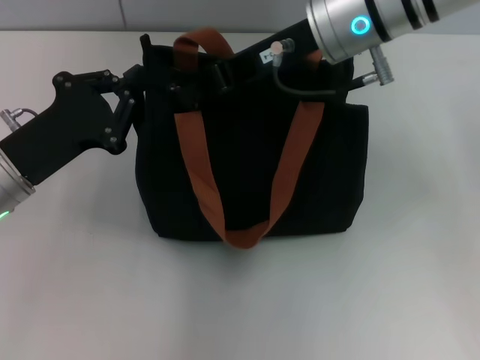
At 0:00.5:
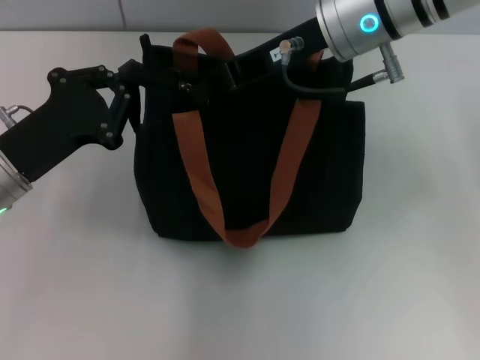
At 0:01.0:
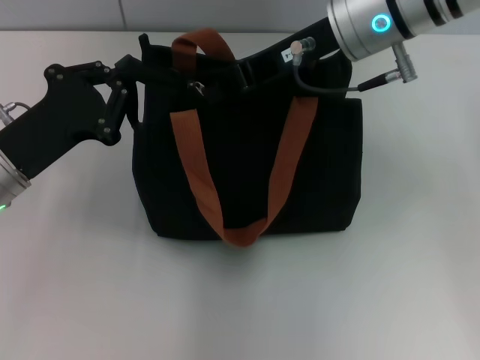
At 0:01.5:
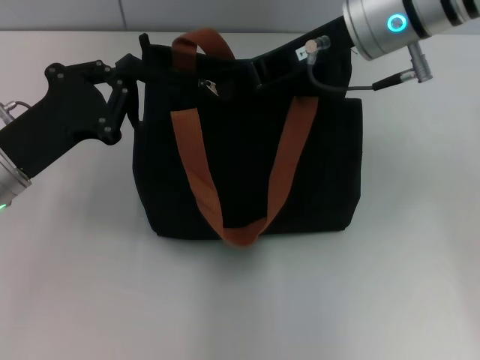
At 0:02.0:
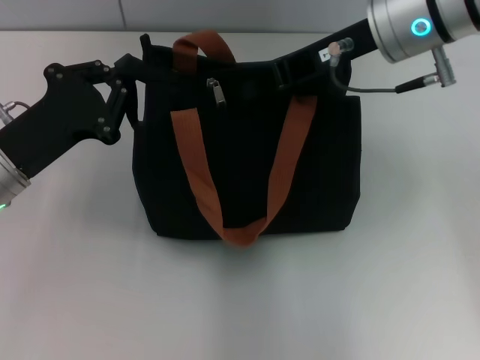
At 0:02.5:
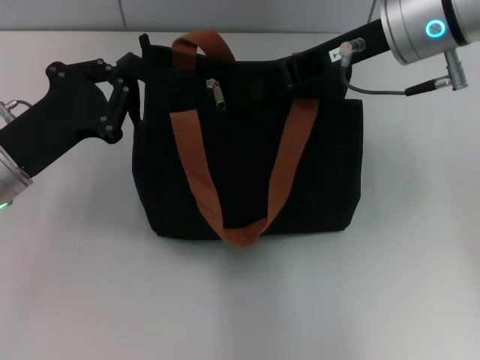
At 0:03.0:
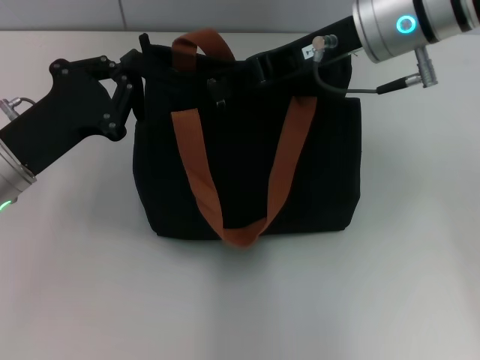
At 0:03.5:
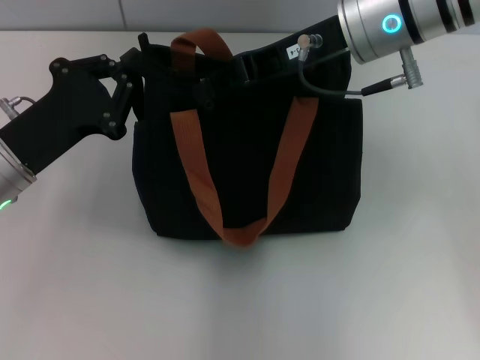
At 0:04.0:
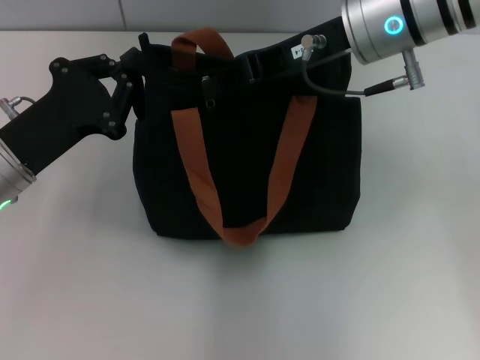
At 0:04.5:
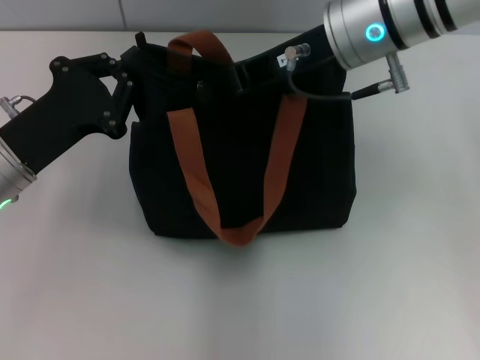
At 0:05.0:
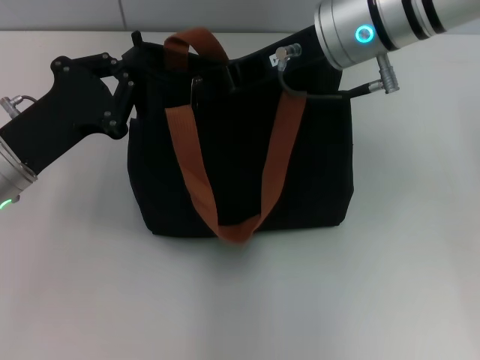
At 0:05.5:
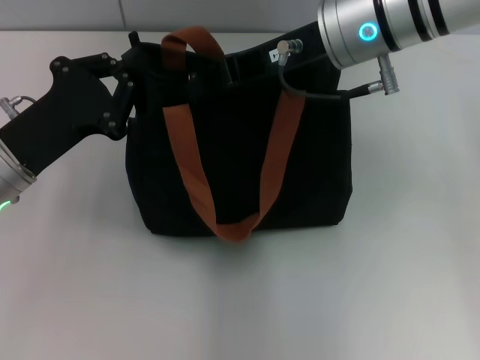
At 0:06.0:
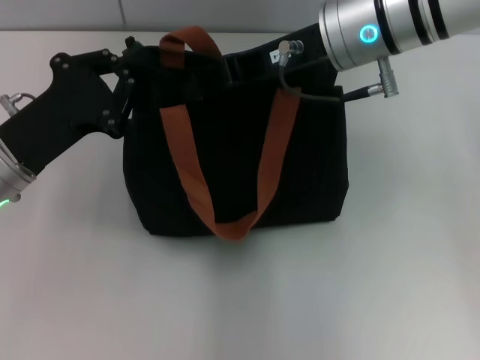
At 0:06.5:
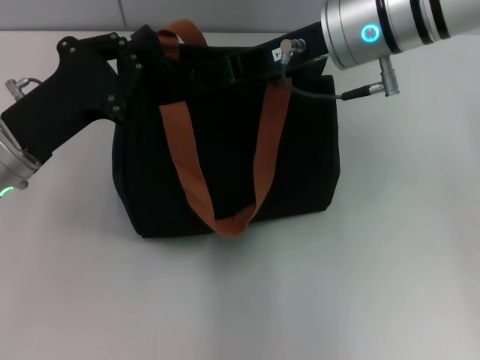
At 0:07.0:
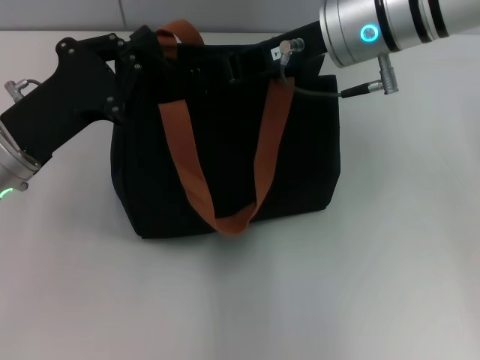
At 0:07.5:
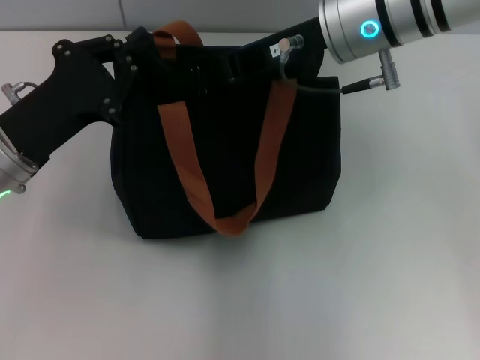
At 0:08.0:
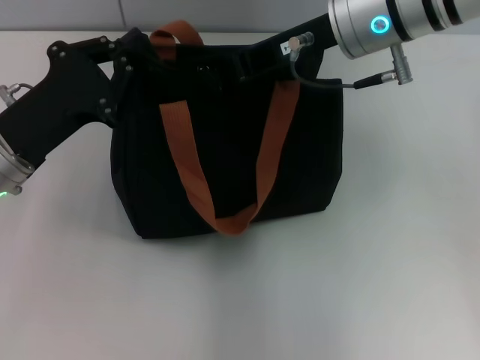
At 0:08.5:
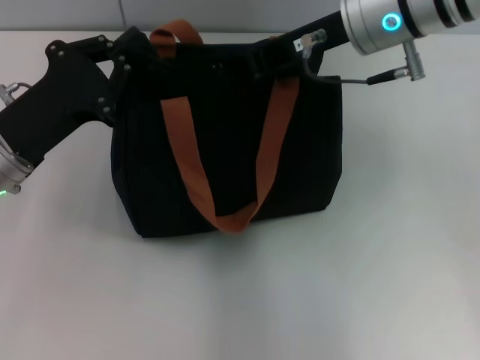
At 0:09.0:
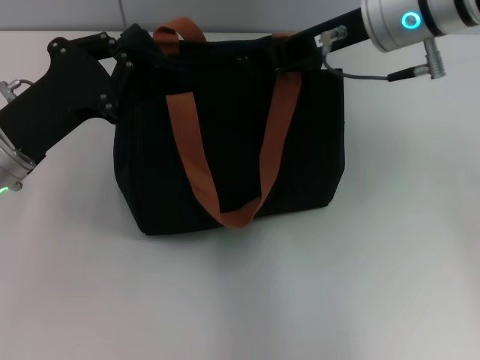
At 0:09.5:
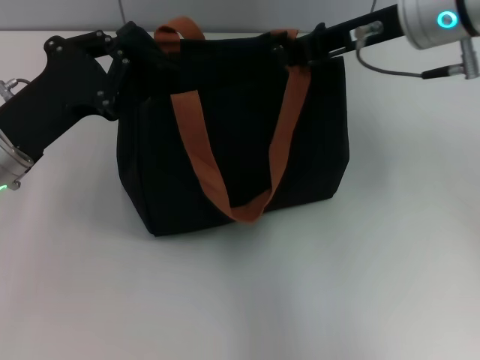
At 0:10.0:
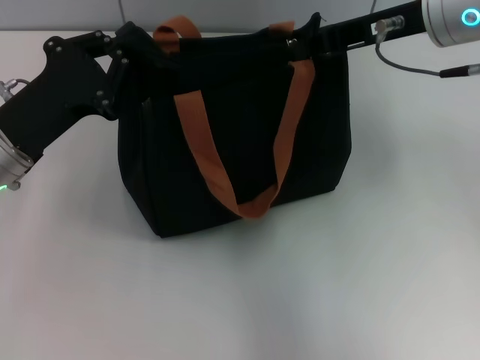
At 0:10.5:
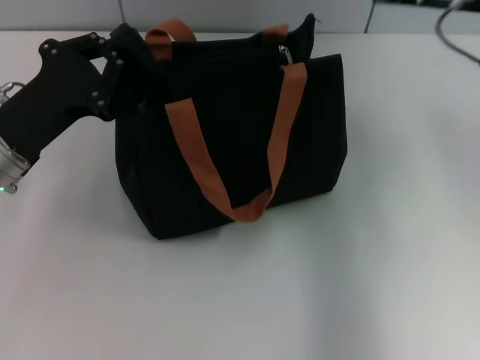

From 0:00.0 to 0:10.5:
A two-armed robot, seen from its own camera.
Step, from 0:00.0 to 0:10.5: Pull up the zipper with your right hand.
From 0:00.0 to 0:08.5: The grippers stay close to where they were, moving slightly.
From 0:08.5 to 0:10.5: The right gripper moves to the right, about 10 cm.

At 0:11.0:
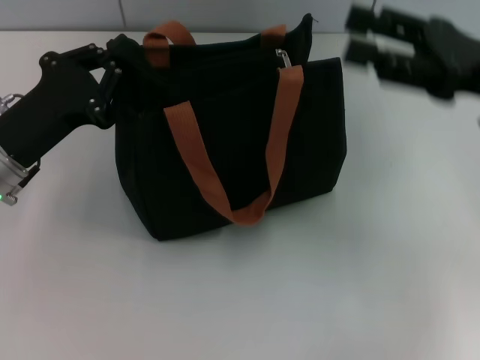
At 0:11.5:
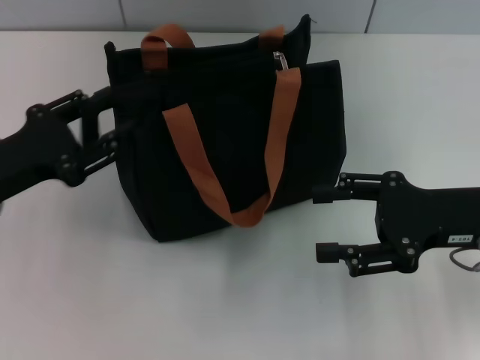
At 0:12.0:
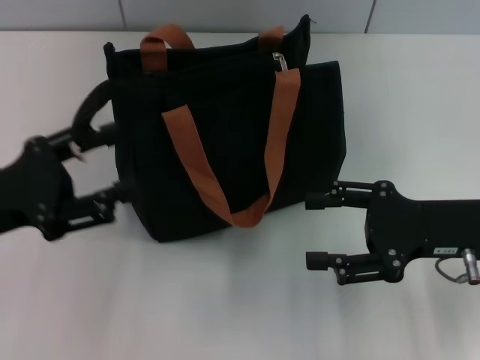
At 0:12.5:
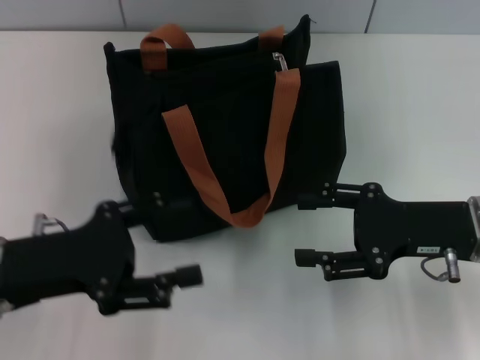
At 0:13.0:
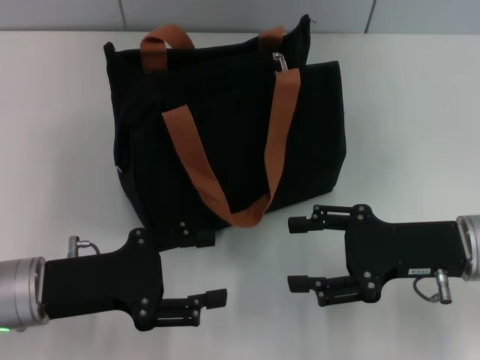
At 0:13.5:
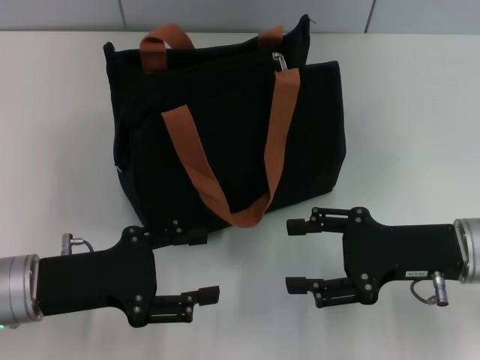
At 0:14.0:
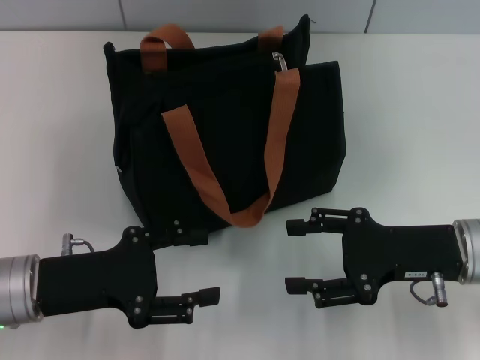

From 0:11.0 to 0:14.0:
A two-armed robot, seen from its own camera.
From 0:11.0 to 0:12.5: The left gripper is displaced backward by some 5 cm, and opens up. The right gripper goes approximately 10 cm downward.
From 0:12.5 to 0:14.0: There are only small adjustments of the grippers.

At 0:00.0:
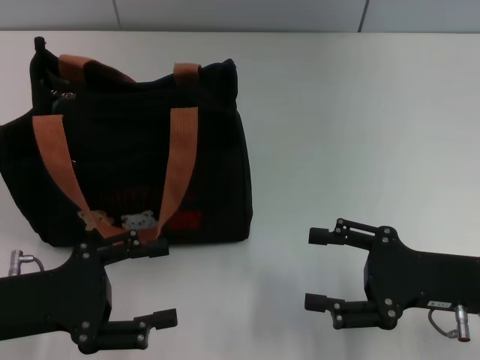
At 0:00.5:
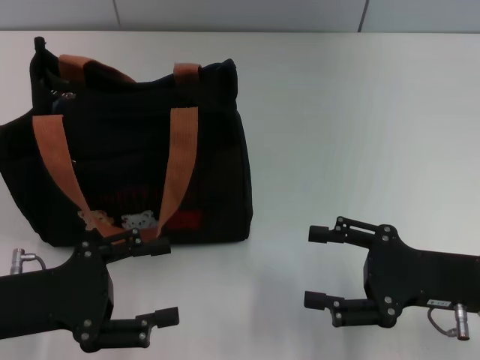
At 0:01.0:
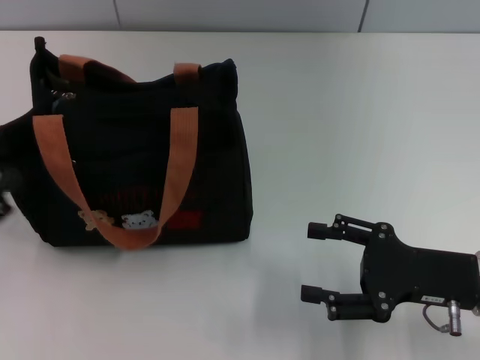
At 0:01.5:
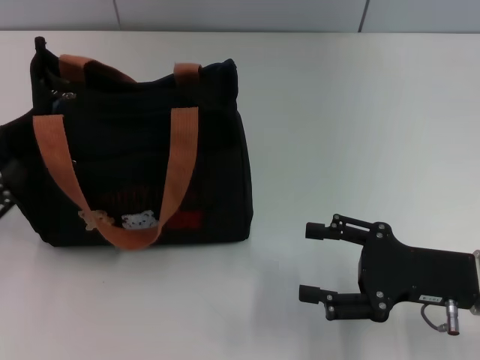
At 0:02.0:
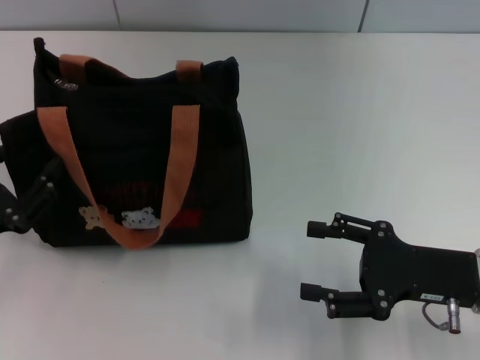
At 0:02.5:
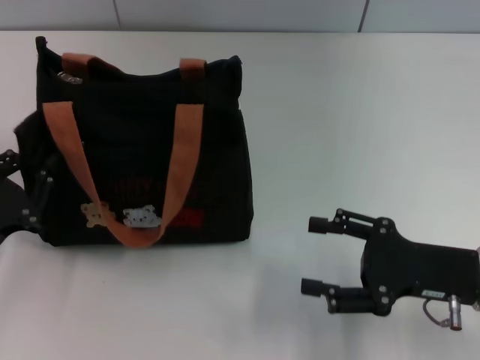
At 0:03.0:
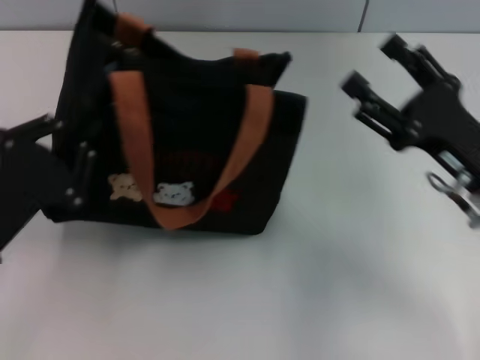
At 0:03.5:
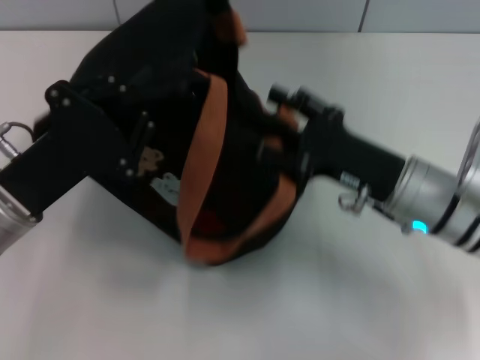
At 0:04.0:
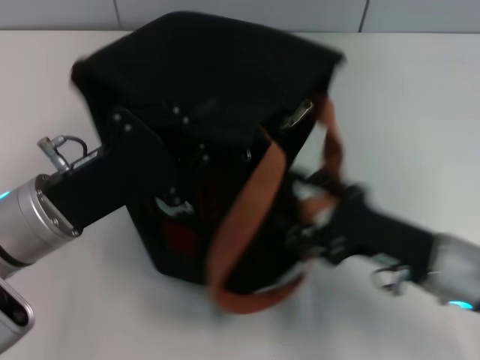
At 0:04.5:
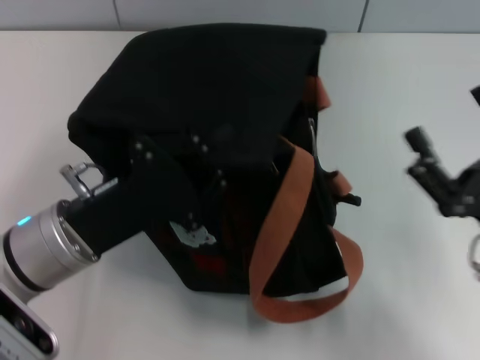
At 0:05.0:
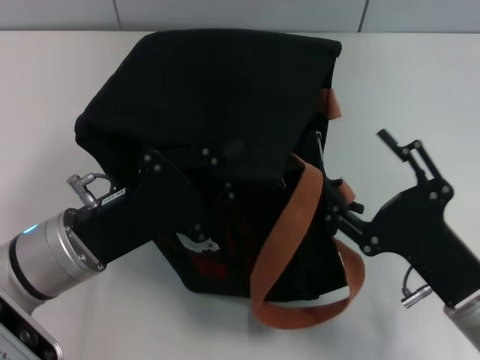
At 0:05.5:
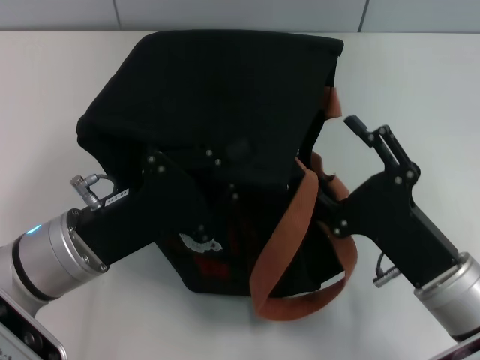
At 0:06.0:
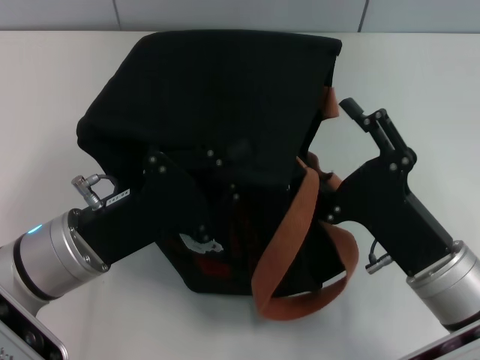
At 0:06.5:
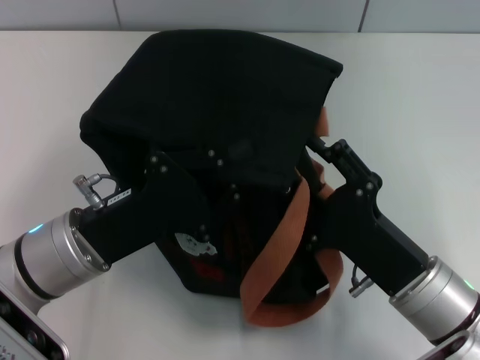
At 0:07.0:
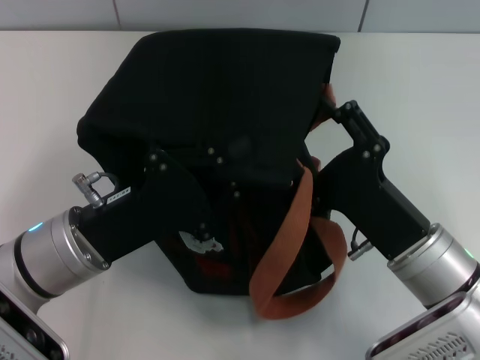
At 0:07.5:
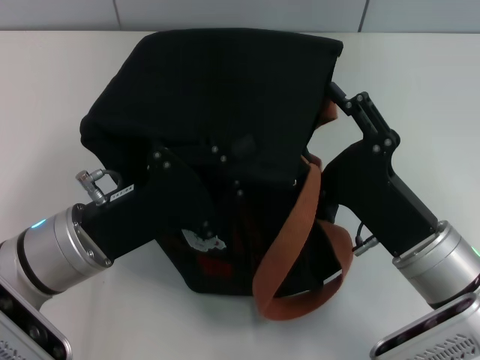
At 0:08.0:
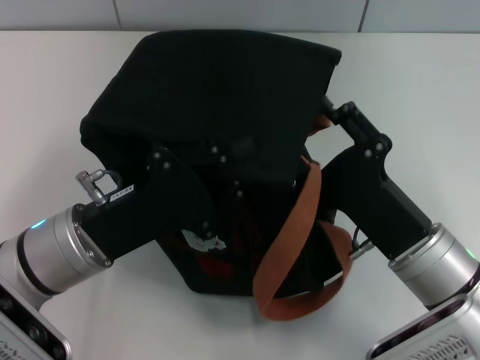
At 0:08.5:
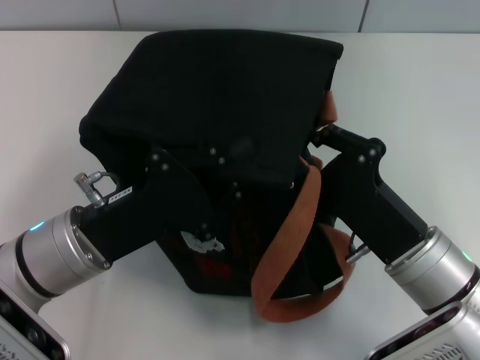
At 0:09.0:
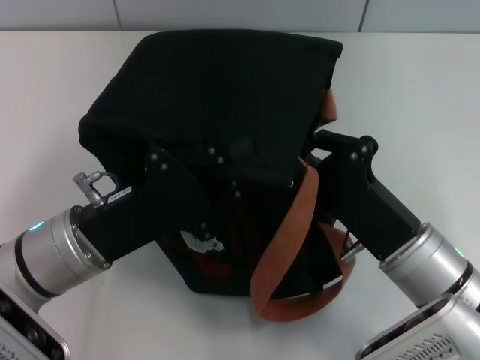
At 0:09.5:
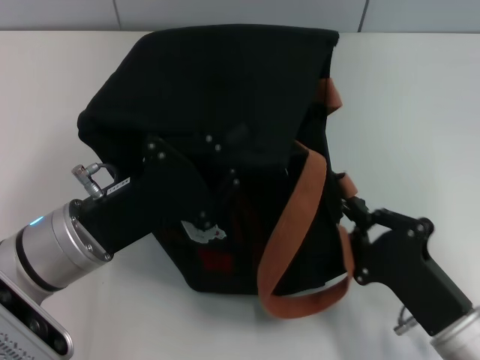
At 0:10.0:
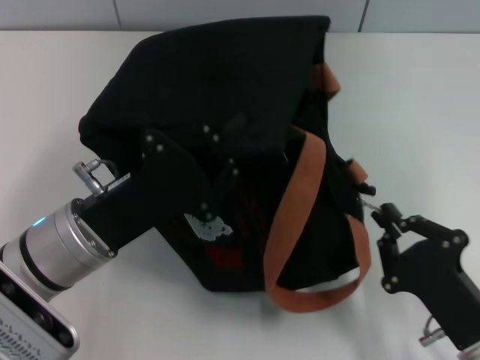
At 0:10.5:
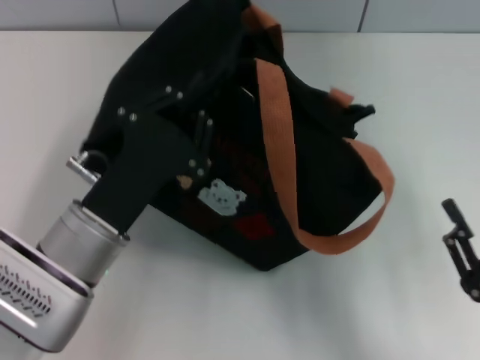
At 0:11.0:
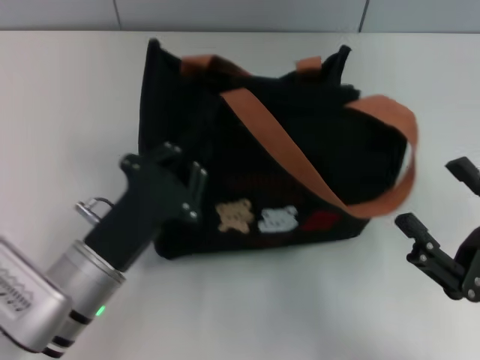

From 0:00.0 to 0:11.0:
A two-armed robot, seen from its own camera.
Step, from 0:00.0 to 0:10.0: Pull open the zipper with your right hand.
From 0:02.0 to 0:03.5: The right gripper travels to the left and forward by approximately 10 cm. The left gripper goes some 10 cm to the right and forward, and closes up.
From 0:03.5 to 0:05.5: The right gripper moves backward, roughly 10 cm, while the left gripper is displaced to the right by about 5 cm.
From 0:05.5 to 0:07.5: The grippers stay close to where they were, moving slightly.
From 0:07.5 to 0:09.0: The right gripper closes its fingers.
From 0:09.0 to 0:11.0: The right gripper travels to the right and backward by about 15 cm, and opens its fingers. The left gripper moves about 5 cm.

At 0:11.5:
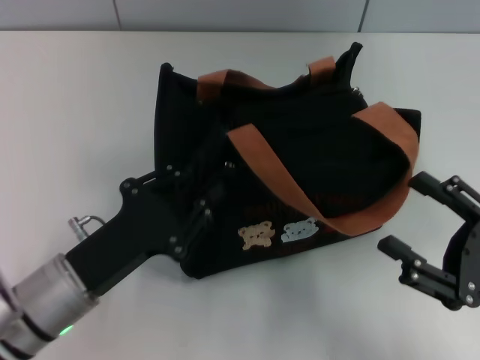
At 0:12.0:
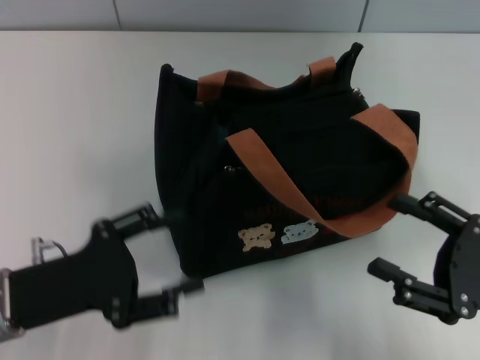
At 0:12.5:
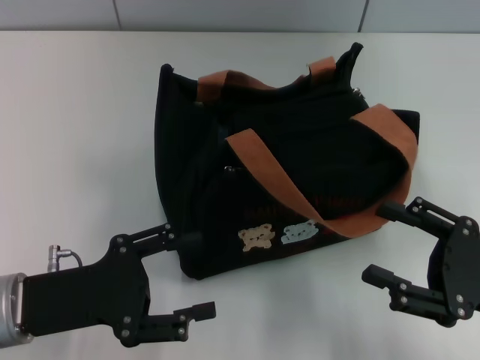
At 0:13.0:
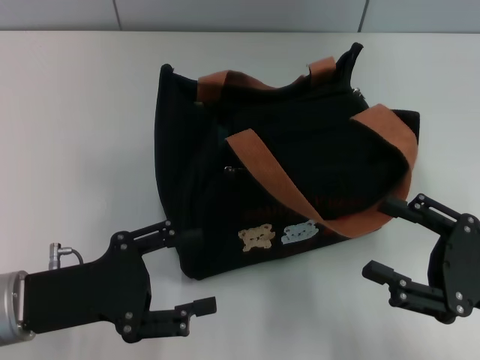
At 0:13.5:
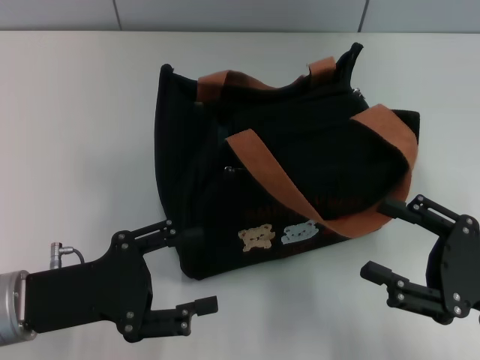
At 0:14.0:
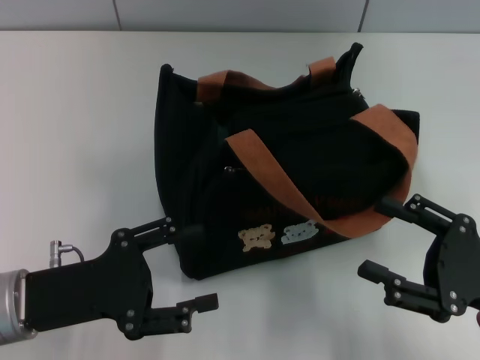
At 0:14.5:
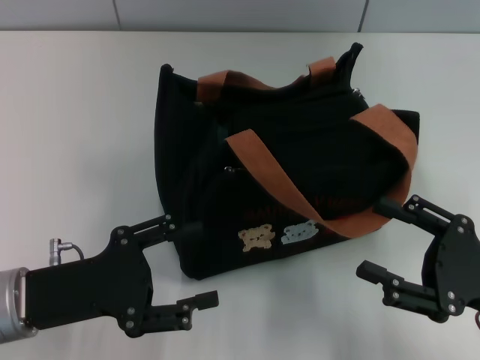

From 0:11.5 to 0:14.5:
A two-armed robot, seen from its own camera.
From 0:11.5 to 0:13.0: The left gripper ends up roughly 5 cm from where it was, and opens up.
From 0:13.0 to 0:14.5: Neither gripper changes place.
